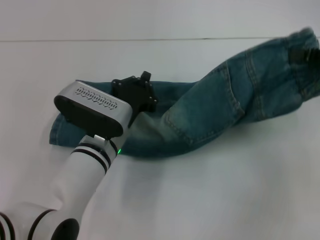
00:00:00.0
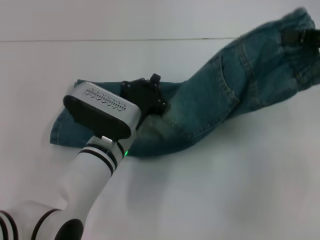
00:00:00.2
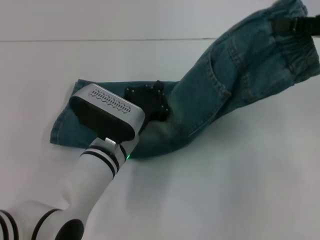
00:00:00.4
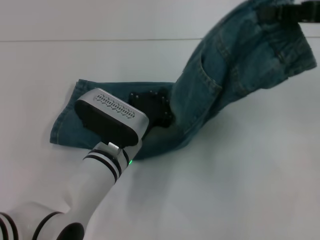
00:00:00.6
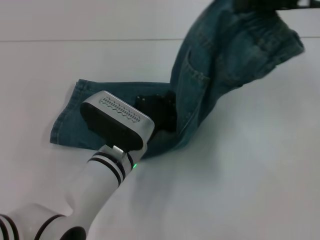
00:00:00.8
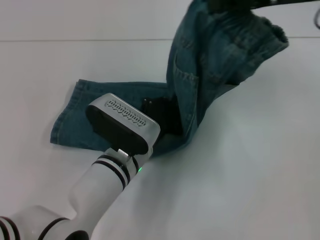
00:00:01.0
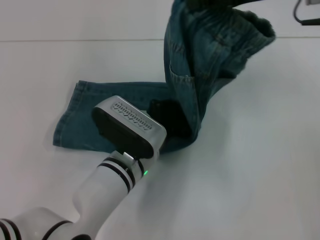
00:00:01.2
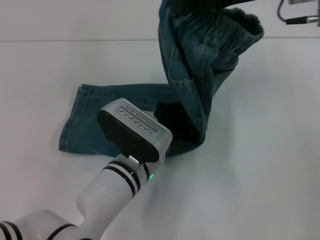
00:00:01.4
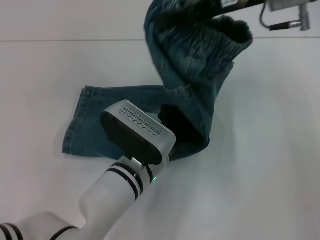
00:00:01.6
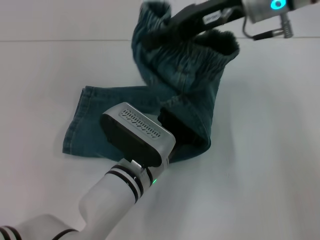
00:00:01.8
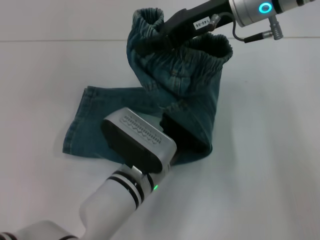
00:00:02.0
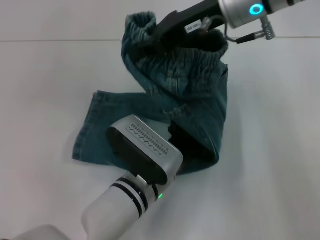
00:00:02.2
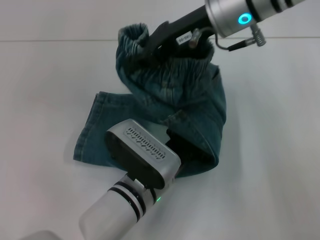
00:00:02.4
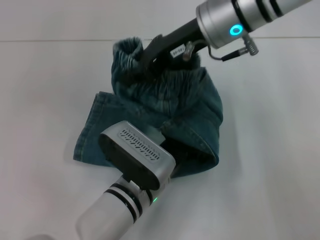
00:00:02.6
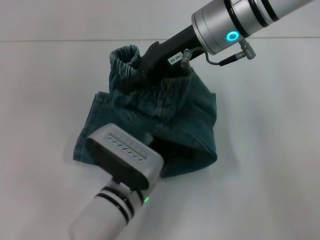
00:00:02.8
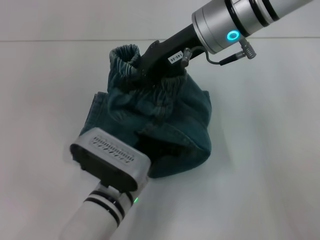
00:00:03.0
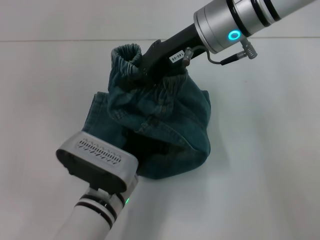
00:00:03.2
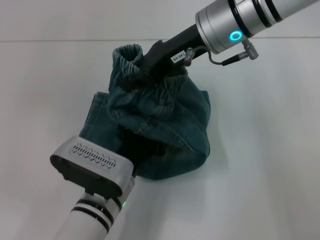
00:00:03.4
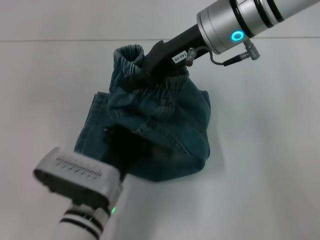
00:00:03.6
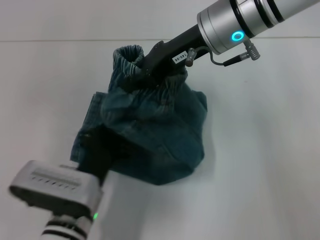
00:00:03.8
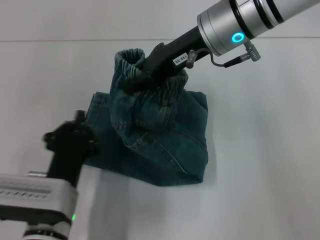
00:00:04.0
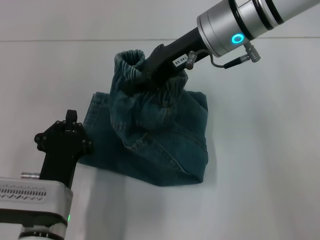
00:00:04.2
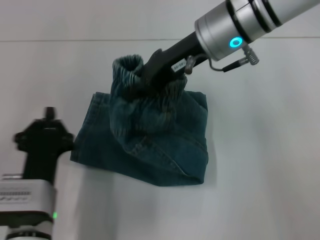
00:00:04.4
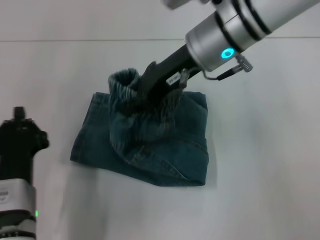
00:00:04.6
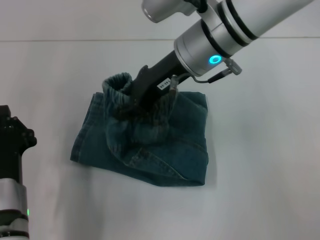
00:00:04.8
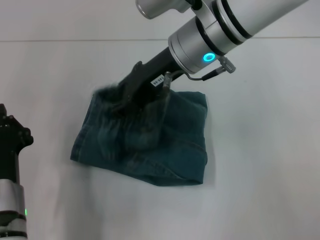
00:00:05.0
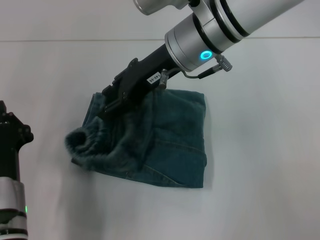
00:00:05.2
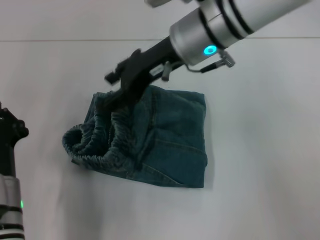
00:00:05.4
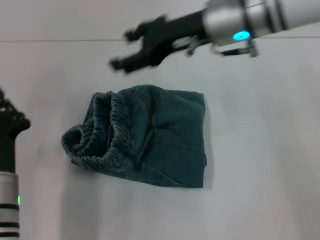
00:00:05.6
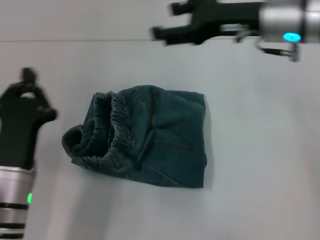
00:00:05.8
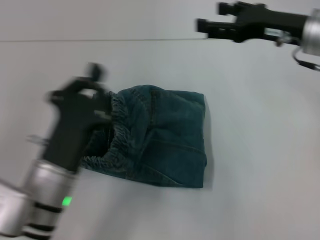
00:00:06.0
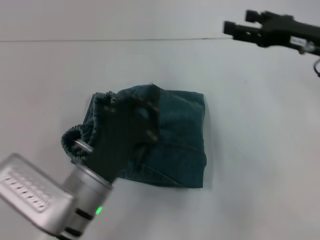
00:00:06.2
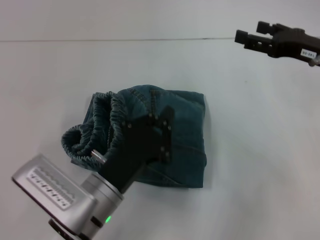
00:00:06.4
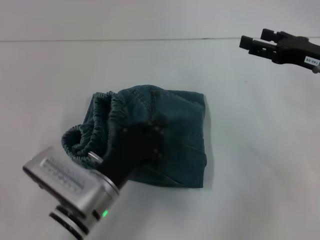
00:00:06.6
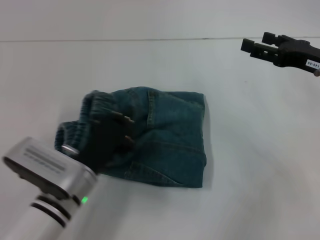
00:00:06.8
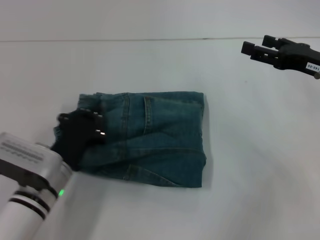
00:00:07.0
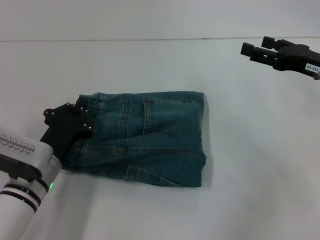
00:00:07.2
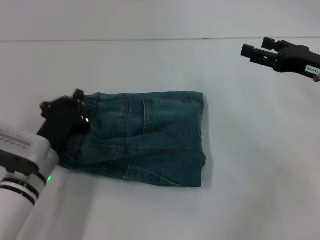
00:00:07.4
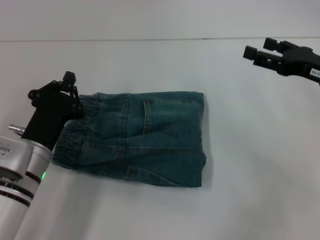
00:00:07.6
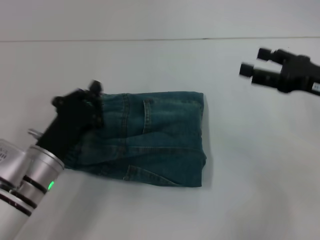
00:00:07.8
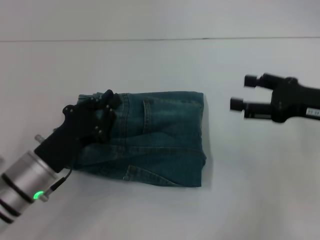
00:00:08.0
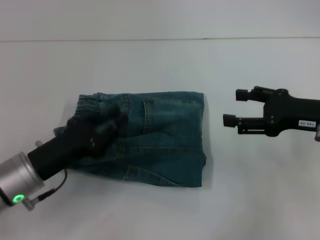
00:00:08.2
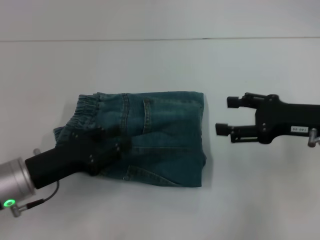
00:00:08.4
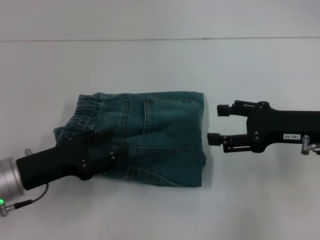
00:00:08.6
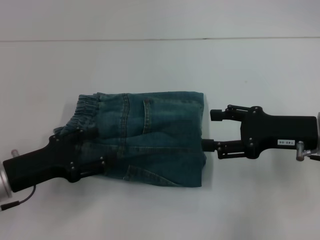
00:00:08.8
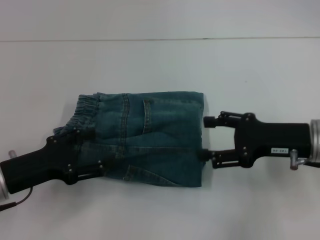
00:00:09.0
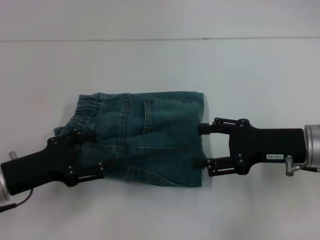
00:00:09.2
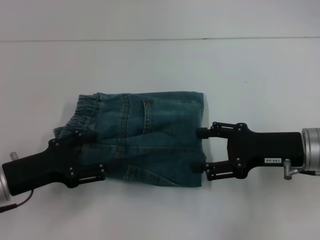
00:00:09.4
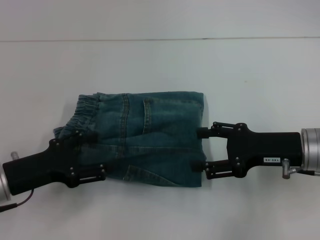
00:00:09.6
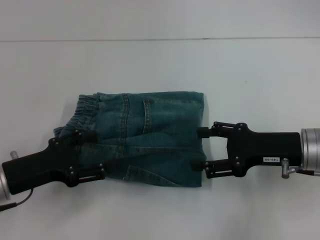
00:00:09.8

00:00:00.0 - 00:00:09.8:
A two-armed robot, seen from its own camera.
Step, 00:00:00.0 - 00:00:02.8: Press the middle of the pants with your left hand.
Step, 00:00:03.0 - 00:00:05.4: Fold to the left with your right hand.
Step, 00:00:05.6 - 00:00:07.4: Adjust the pants with your left hand.
00:00:00.0 - 00:00:01.4: The right gripper heads to the left, upward and forward, covering approximately 20 cm; the left gripper moves about 5 cm.
00:00:01.4 - 00:00:02.8: The right gripper goes approximately 10 cm to the left.
00:00:02.8 - 00:00:04.2: The left gripper travels to the left by some 10 cm.
00:00:04.2 - 00:00:05.6: The right gripper opens; the left gripper heads to the left, covering some 5 cm.
00:00:05.6 - 00:00:07.0: The left gripper goes to the right and returns, approximately 10 cm each way, while the right gripper goes some 20 cm to the right and downward.
00:00:07.0 - 00:00:08.4: The left gripper moves to the left, about 5 cm, and opens up. The right gripper shifts by some 5 cm.
00:00:08.4 - 00:00:09.8: The left gripper opens.

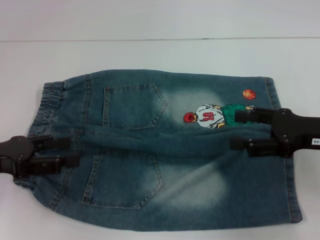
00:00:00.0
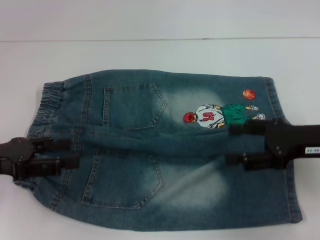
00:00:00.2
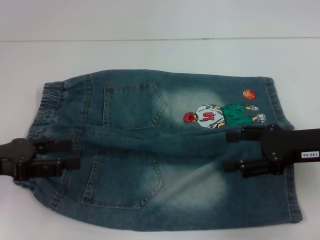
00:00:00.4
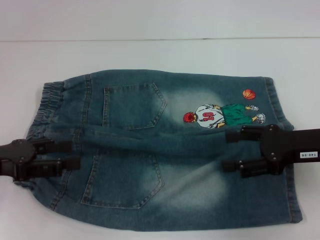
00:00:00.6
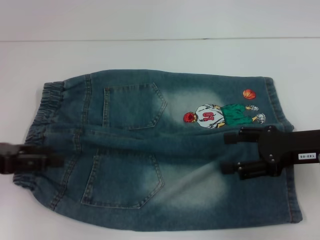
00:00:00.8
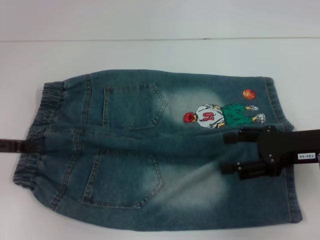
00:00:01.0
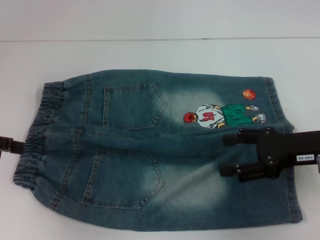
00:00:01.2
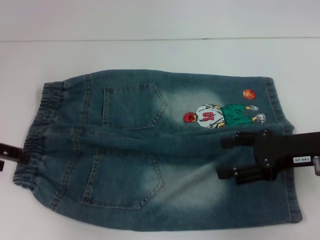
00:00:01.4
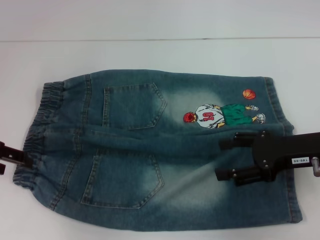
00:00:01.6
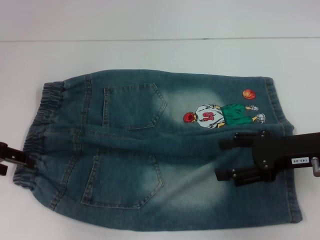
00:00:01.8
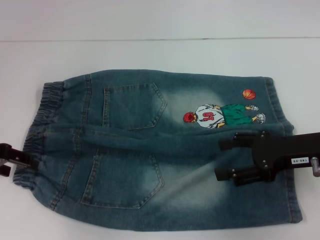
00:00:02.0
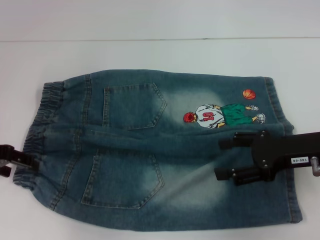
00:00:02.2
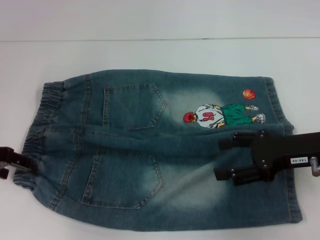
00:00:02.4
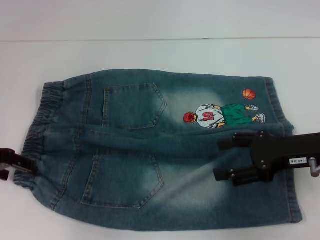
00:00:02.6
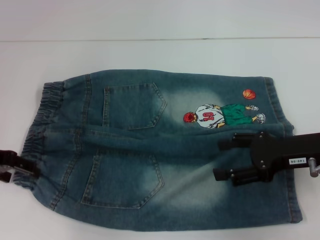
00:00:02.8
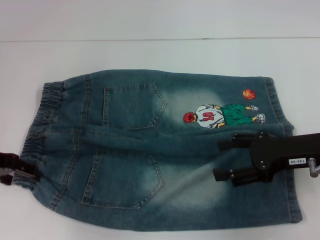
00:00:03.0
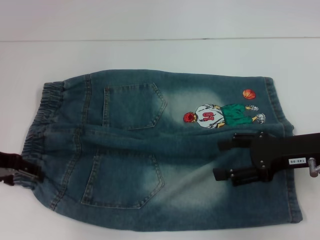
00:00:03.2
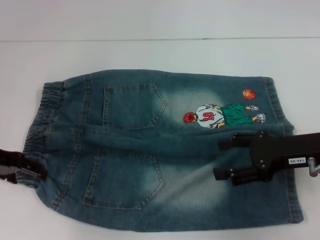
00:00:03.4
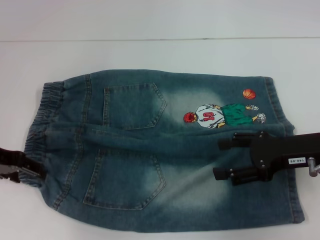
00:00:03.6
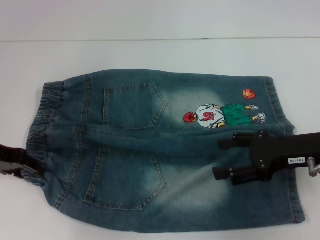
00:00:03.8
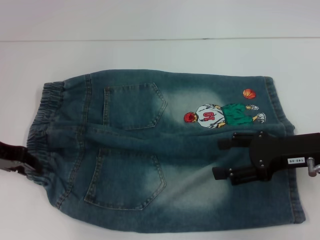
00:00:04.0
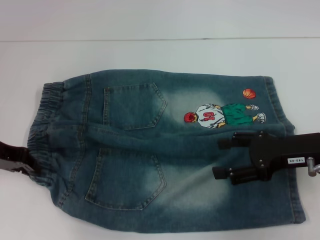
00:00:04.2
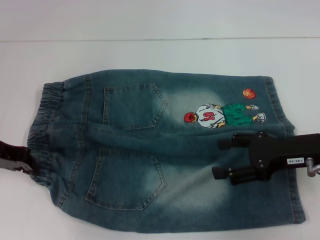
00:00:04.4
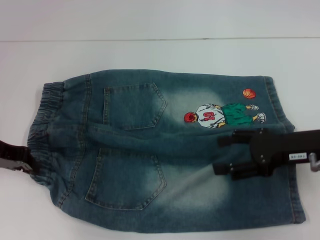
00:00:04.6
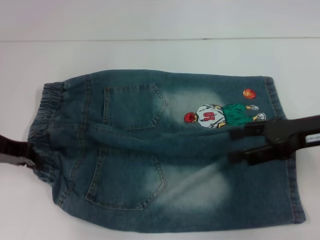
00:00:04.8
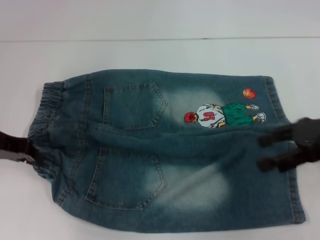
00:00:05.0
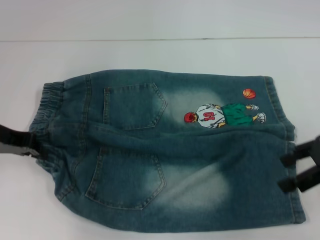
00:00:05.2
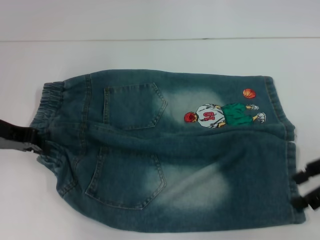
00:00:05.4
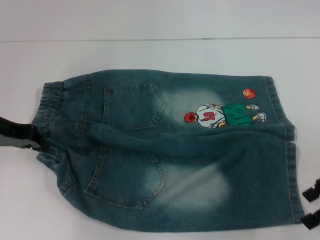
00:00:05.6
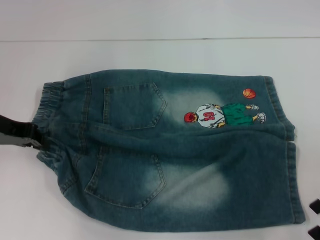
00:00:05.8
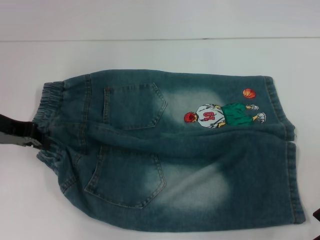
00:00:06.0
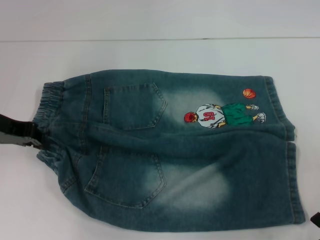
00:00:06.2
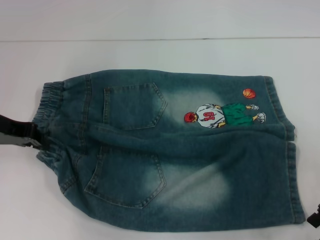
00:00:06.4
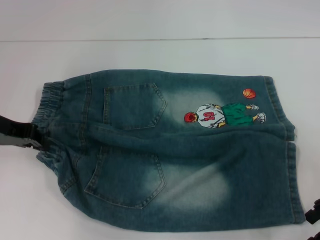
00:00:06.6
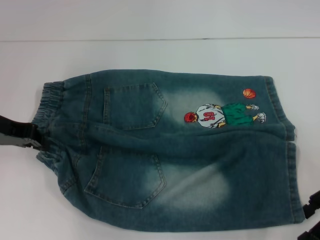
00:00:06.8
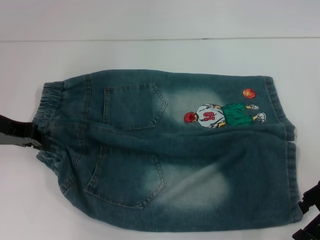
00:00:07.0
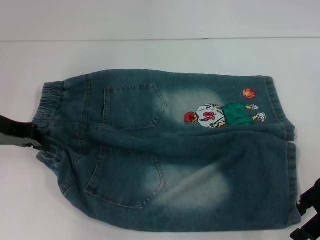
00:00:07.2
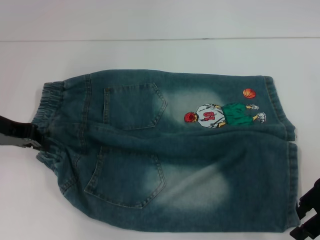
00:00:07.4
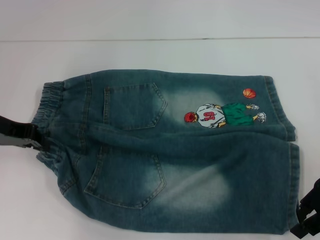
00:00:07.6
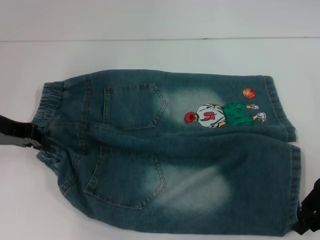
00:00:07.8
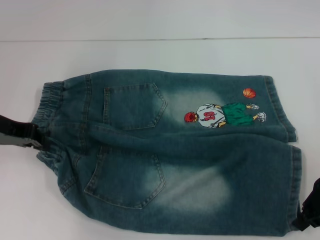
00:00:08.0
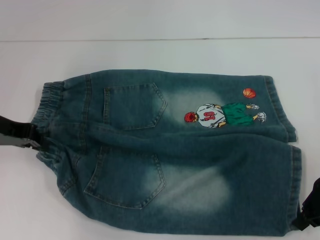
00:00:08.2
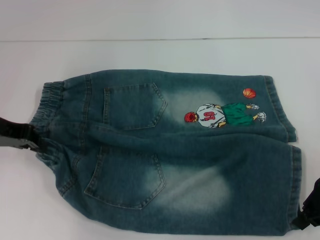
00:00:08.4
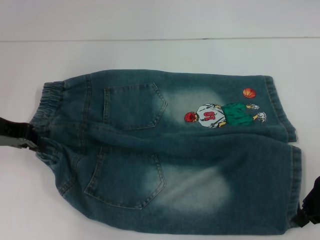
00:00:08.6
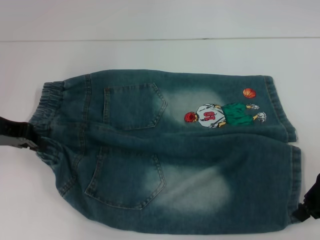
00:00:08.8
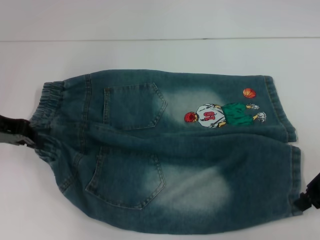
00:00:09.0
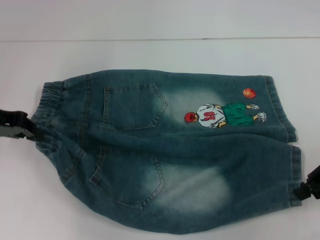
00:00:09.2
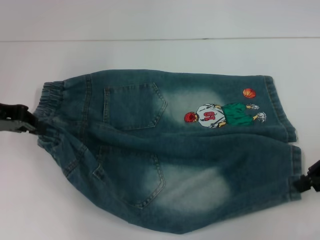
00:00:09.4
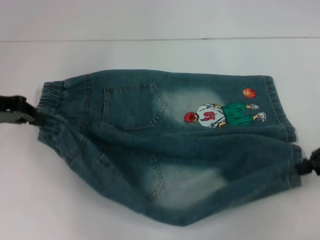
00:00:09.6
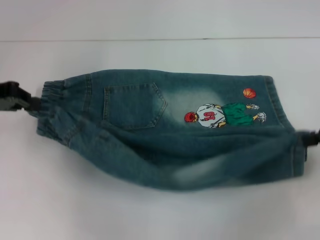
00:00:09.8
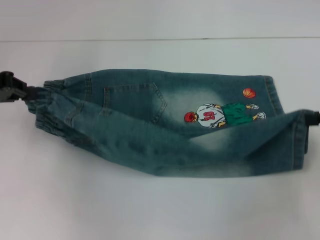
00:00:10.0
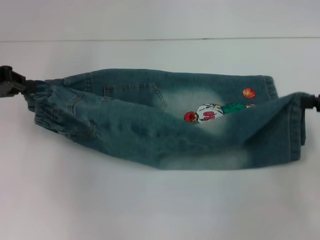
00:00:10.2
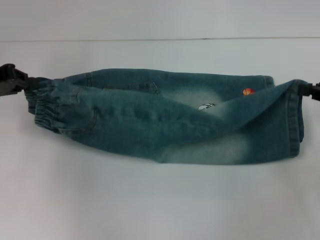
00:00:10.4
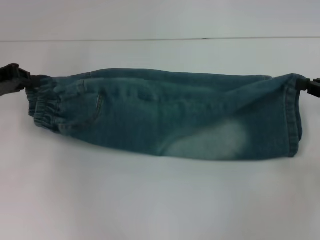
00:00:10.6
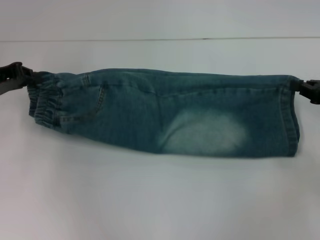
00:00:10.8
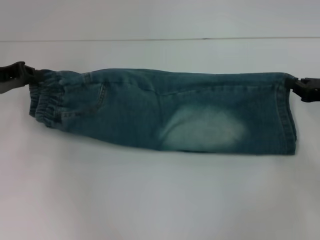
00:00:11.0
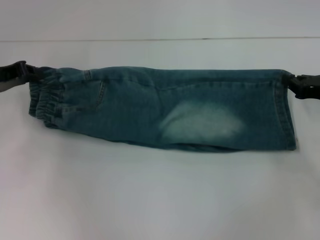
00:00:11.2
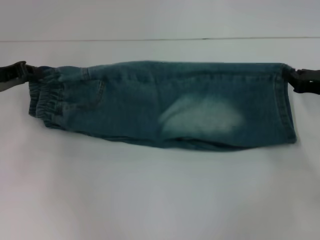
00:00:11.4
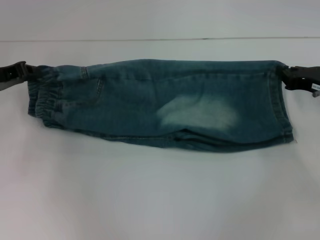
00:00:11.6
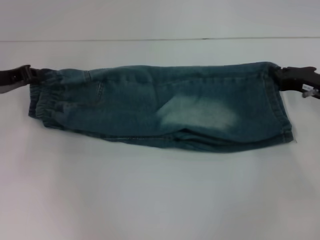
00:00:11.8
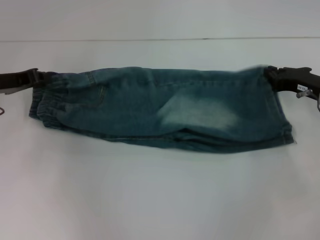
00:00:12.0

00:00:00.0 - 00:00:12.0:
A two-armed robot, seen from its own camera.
Step, 00:00:00.0 - 00:00:03.8: Hold the lower left waistband with your left hand.
Step, 00:00:04.0 - 00:00:08.2: Grab the lower right pant leg with your right hand.
00:00:00.0 - 00:00:01.6: The left gripper travels forward by approximately 5 cm.
00:00:01.6 - 00:00:03.0: There are only small adjustments of the grippers.
00:00:03.0 - 00:00:04.4: The left gripper closes up.
00:00:04.4 - 00:00:06.0: The right gripper is displaced to the right by some 5 cm.
00:00:06.0 - 00:00:07.6: The grippers move only a little.
00:00:07.6 - 00:00:09.0: The right gripper closes its fingers.
00:00:09.0 - 00:00:10.4: The right gripper moves to the right, roughly 5 cm.
00:00:10.4 - 00:00:12.0: The right gripper travels to the left, downward and forward by roughly 10 cm, while the left gripper goes approximately 5 cm downward.
